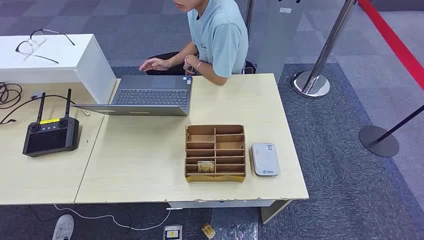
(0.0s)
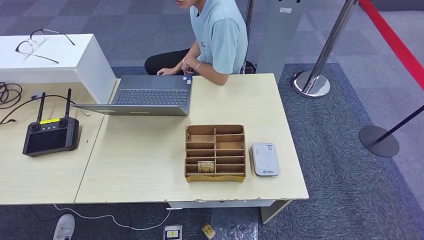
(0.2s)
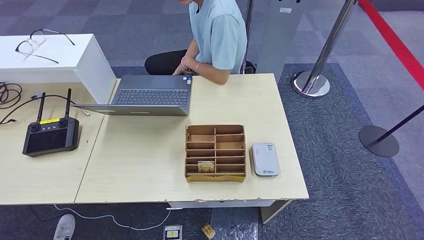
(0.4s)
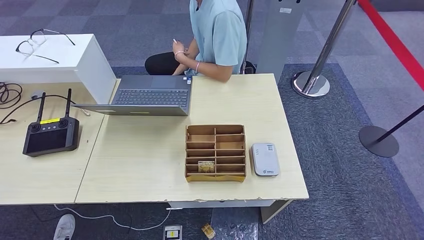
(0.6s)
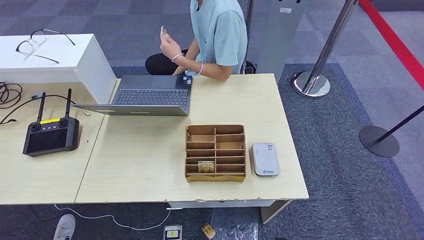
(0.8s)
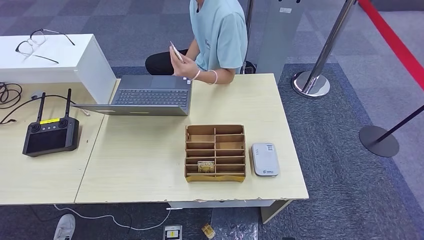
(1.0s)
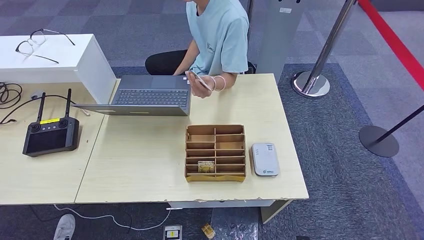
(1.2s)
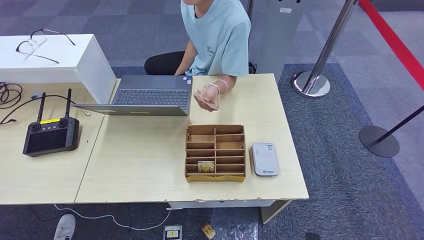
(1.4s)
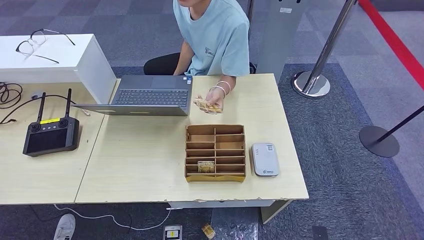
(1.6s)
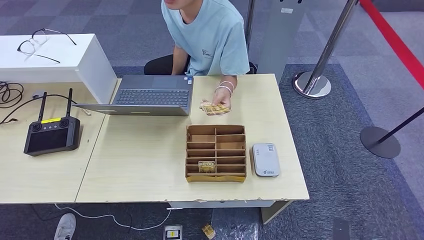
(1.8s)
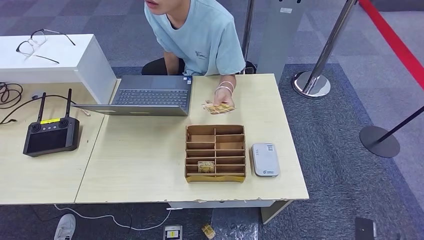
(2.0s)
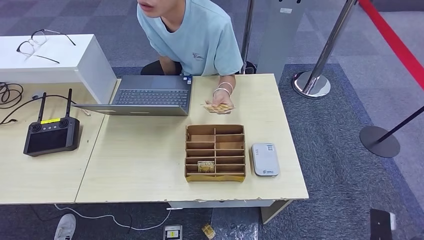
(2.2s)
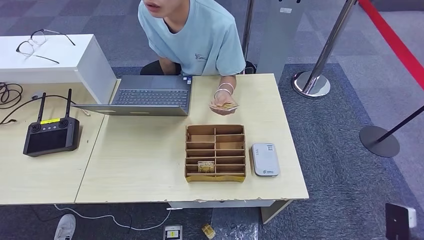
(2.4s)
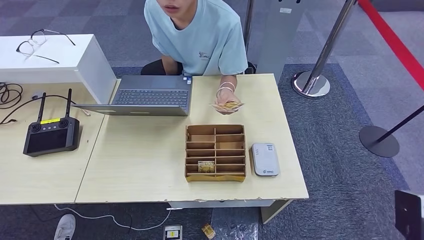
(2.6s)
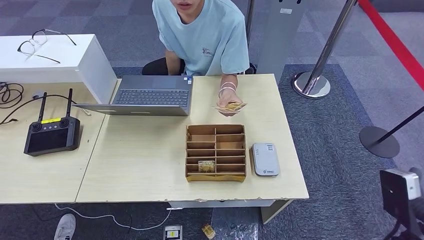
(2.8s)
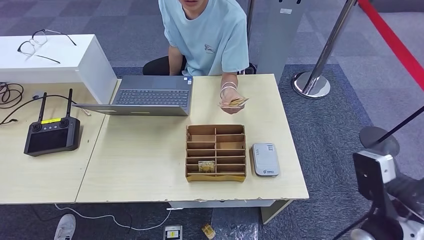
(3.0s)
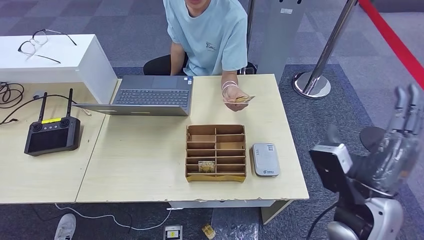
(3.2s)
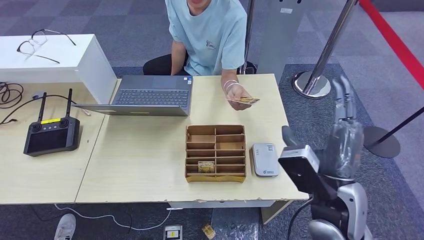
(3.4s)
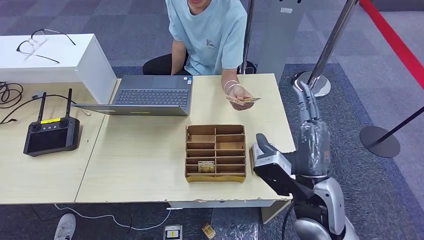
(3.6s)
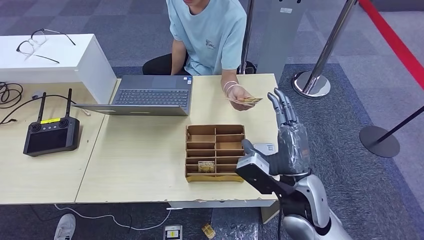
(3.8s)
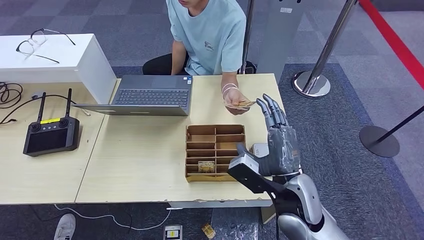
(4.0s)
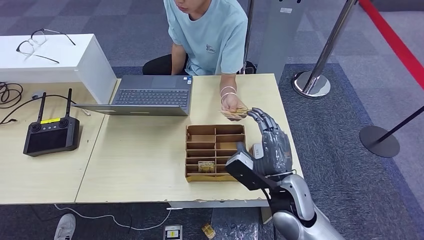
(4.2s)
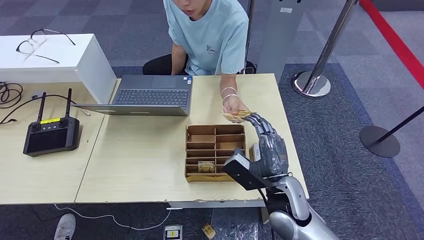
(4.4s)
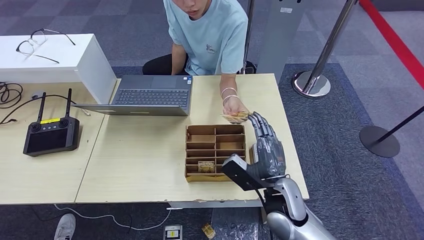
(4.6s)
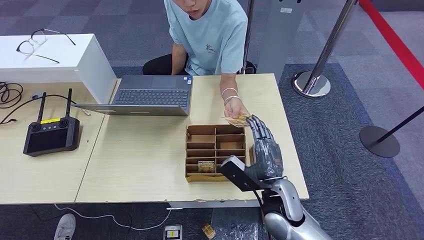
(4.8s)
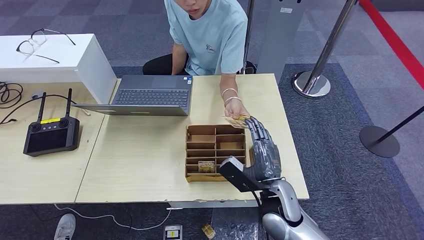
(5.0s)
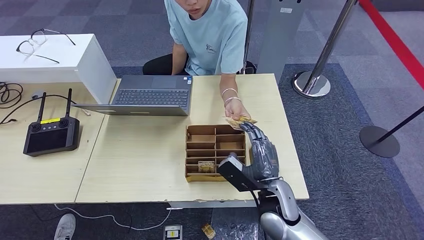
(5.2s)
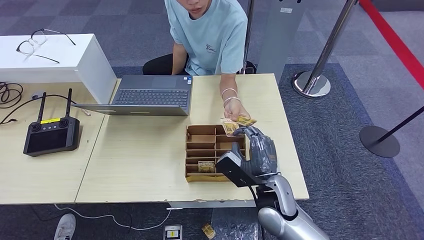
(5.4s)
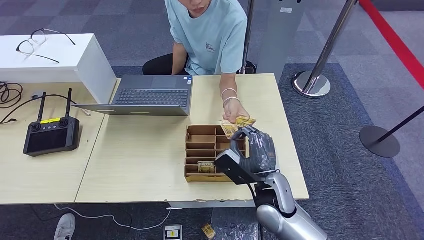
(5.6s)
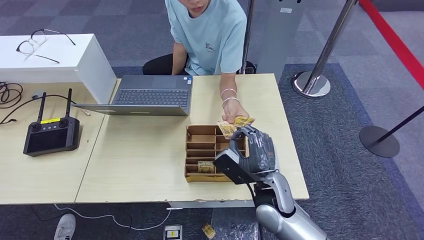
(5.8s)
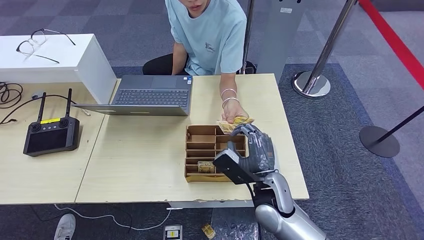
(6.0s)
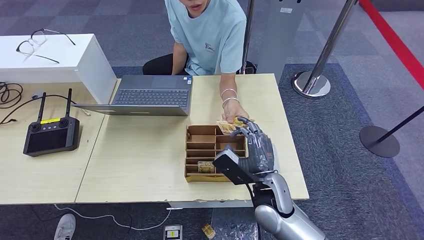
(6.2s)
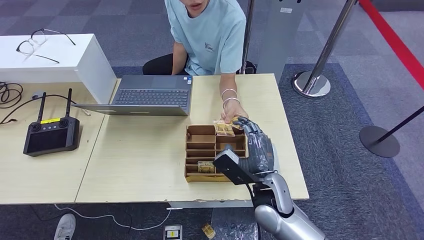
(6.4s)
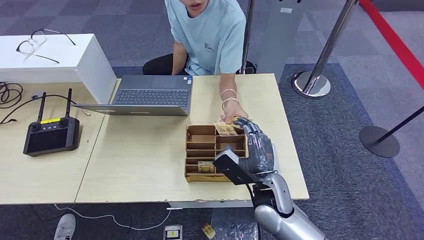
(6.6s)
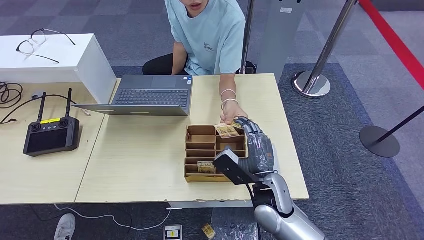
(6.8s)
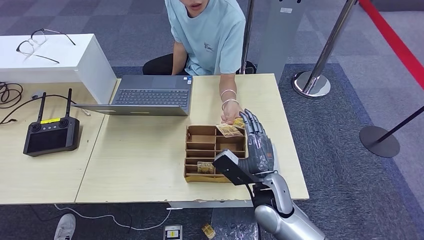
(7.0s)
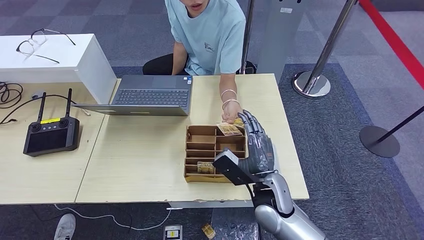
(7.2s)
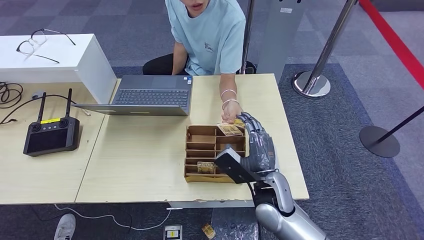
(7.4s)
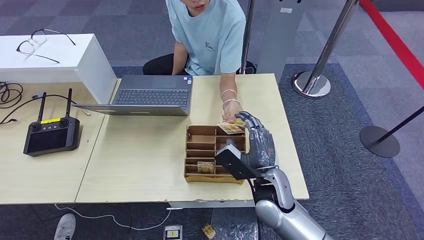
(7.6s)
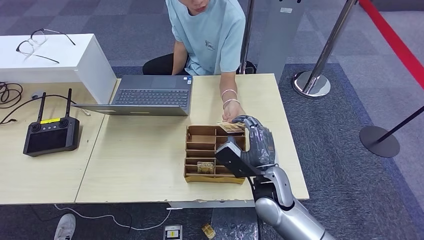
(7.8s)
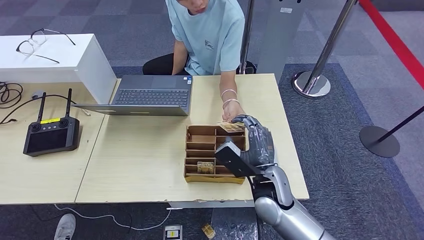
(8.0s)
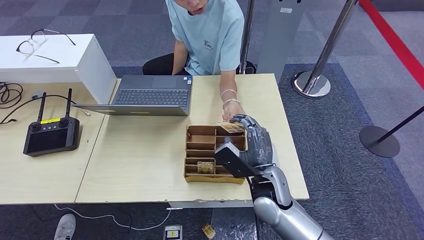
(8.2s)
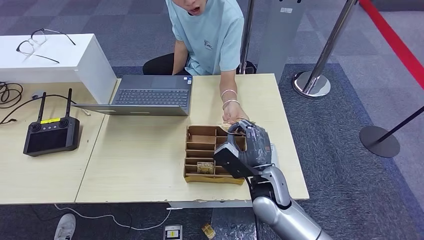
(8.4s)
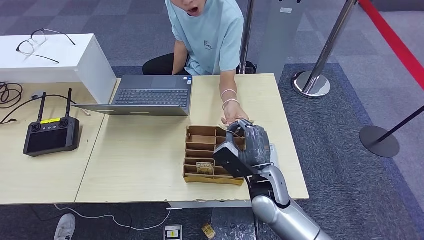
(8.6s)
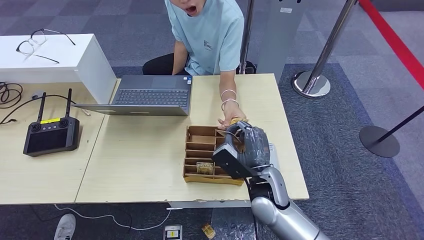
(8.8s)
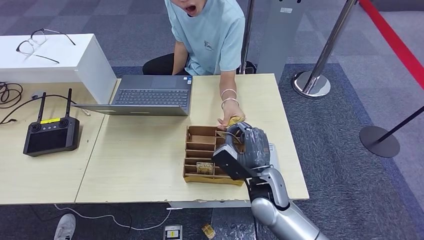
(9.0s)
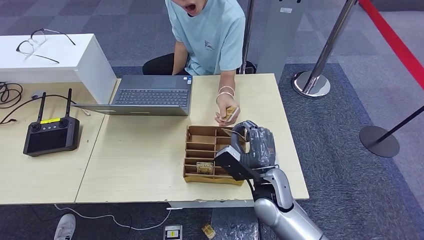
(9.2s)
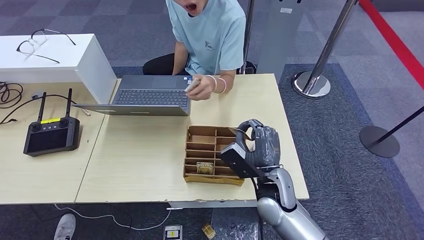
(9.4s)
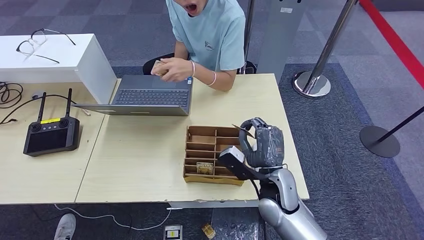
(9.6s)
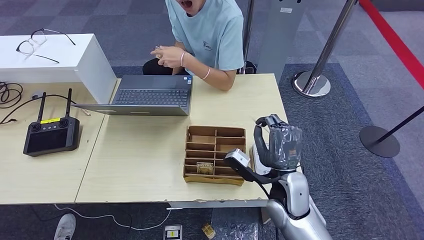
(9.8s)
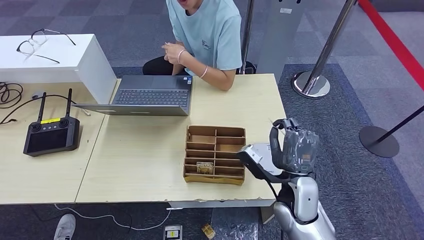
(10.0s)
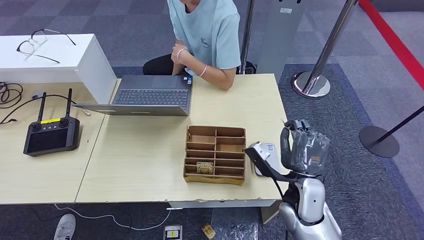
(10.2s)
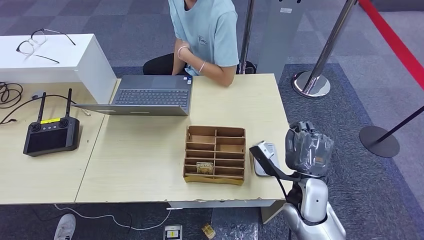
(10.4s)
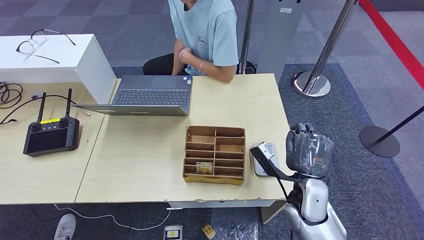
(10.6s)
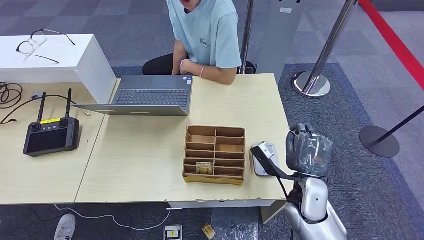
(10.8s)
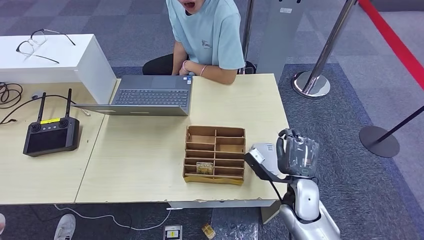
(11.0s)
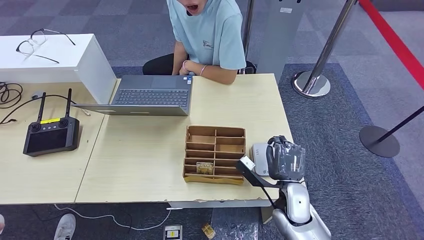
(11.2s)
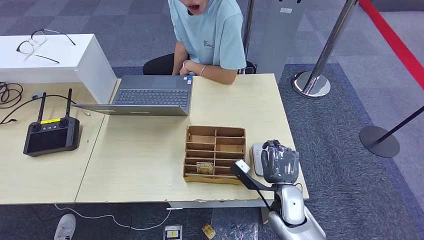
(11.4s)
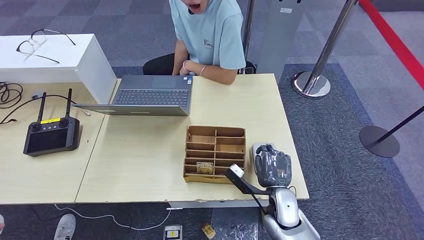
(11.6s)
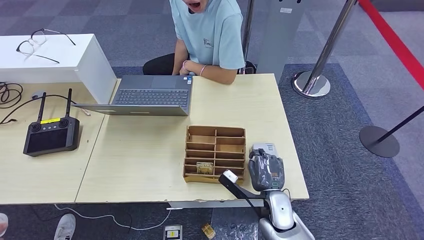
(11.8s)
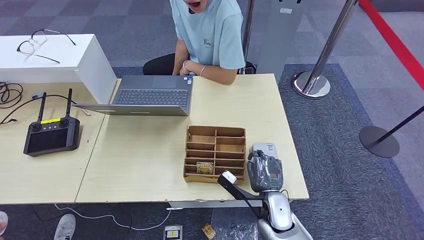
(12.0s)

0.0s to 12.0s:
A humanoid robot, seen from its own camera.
Step, 0.0s to 10.4s: Take the ID card from the person's hand.
1.6s to 3.0s: The right hand is displaced upward by some 35 cm.
3.0s to 4.4s: The right hand is displaced to the left, forward and downward by roughly 20 cm.
4.4s to 6.0s: The hands stay close to where they were, moving slightly.
6.0s to 7.6s: Both hands stay about where they are.
7.6s to 9.0s: The two hands keep their place.
9.0s to 10.4s: The right hand heads to the right, covering about 10 cm.
10.4s to 12.0s: The right hand shifts about 10 cm downward.

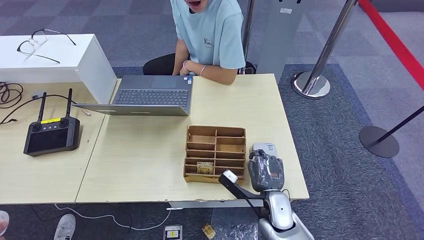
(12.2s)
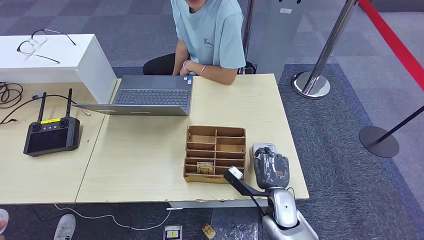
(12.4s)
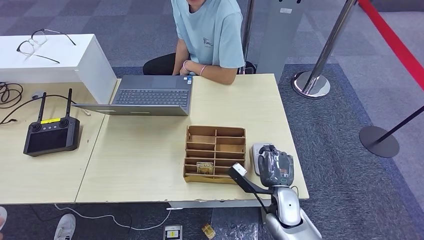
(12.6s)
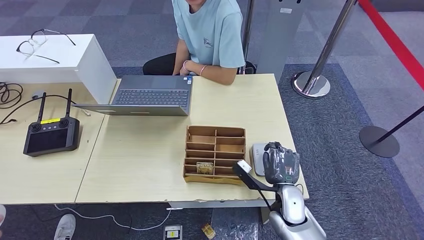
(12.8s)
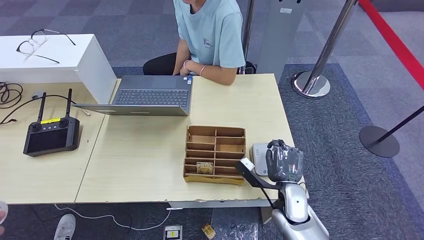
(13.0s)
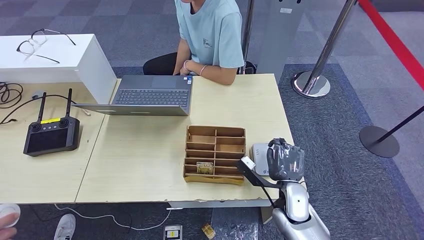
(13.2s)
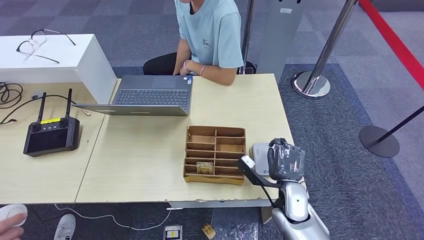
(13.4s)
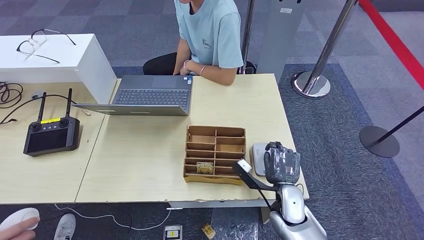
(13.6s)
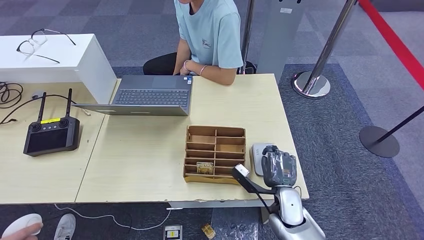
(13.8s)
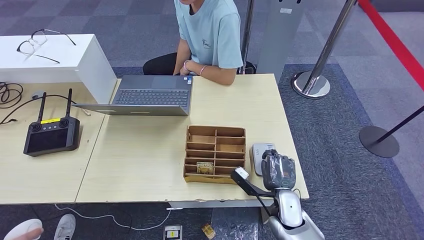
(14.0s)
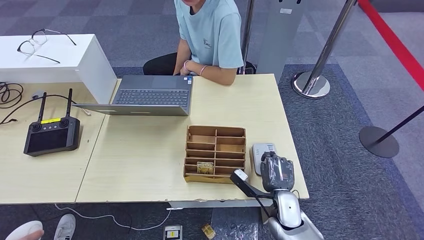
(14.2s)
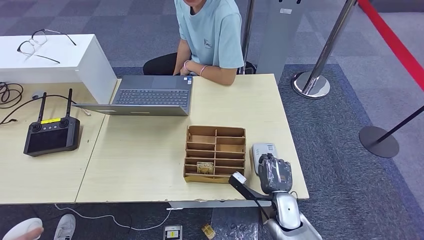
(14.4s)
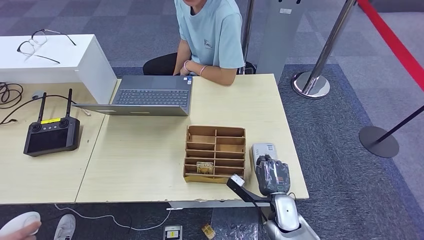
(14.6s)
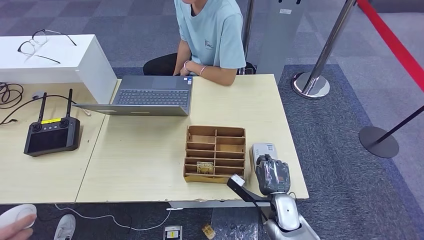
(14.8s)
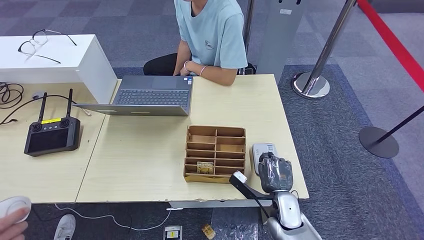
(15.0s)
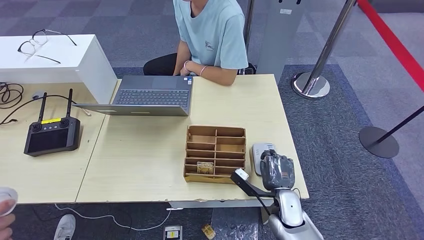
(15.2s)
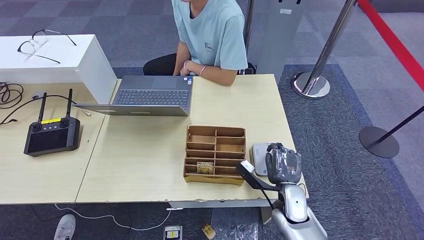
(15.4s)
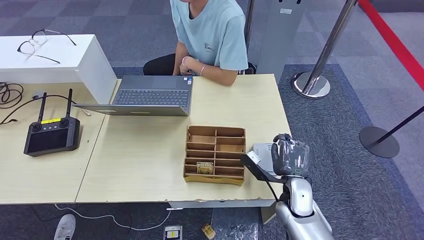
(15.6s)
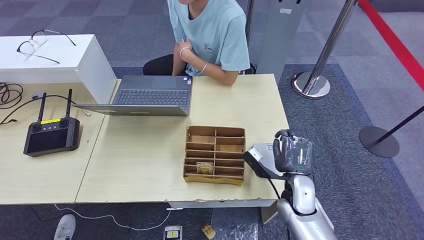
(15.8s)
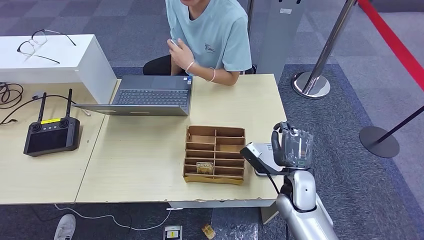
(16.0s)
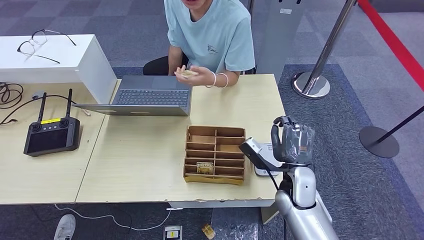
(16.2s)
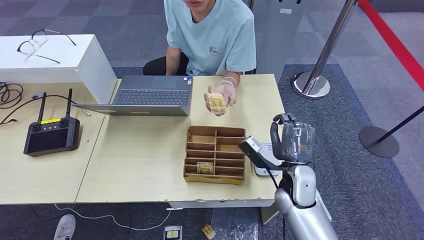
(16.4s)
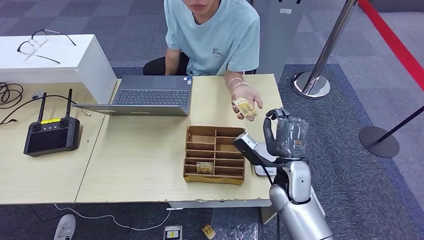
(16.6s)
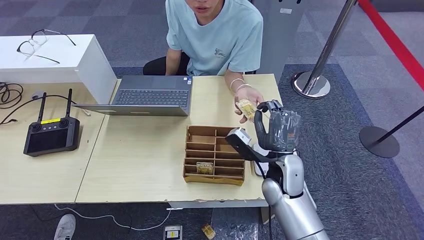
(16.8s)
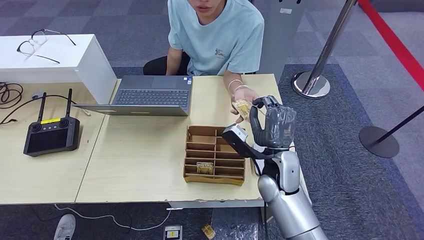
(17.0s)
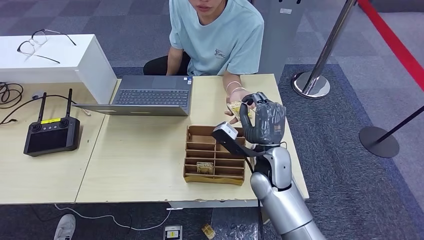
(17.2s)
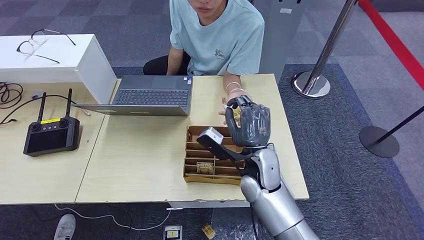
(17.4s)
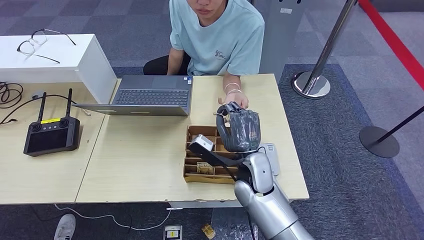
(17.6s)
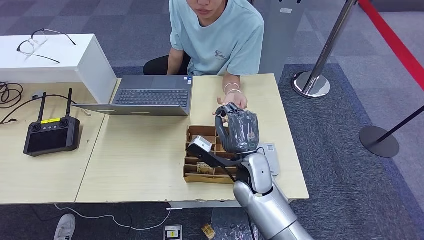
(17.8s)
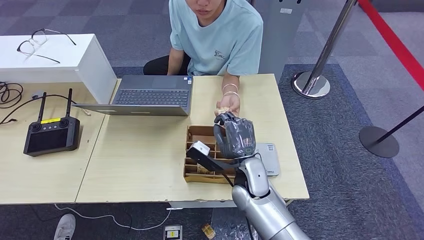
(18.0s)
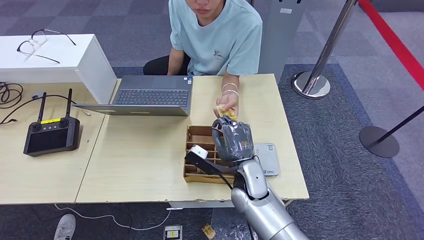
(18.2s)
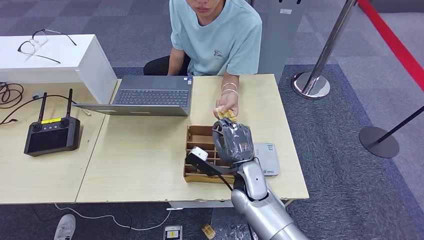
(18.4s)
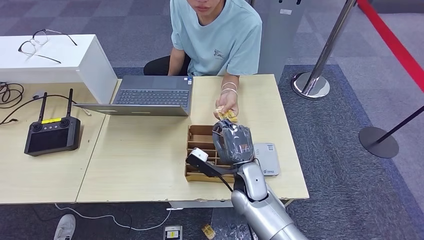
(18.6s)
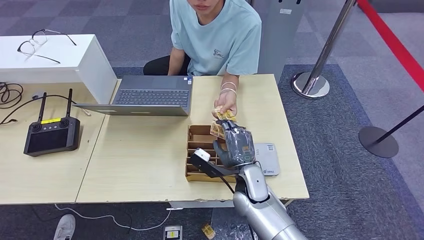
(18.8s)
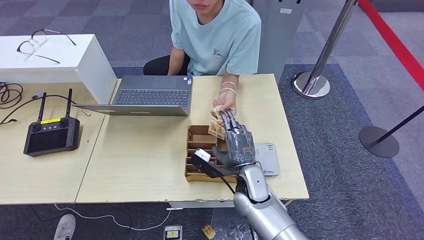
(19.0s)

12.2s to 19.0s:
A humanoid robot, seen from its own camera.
Step, 12.2s to 15.0s: Place the ID card on the card reader.
12.2s to 15.0s: There are only small adjustments of the hands.
15.0s to 16.2s: The right hand moves upward, some 10 cm.
16.2s to 17.6s: The right hand heads to the left, covering about 10 cm.
17.6s to 19.0s: The right hand shifts about 5 cm downward.
